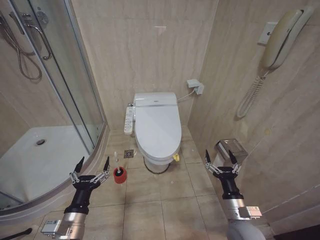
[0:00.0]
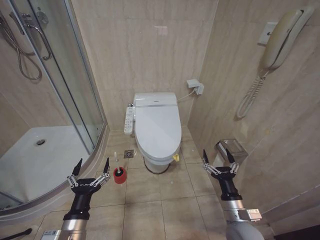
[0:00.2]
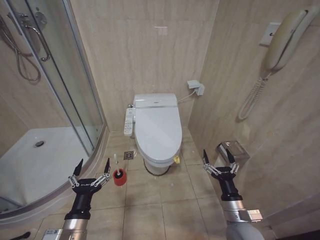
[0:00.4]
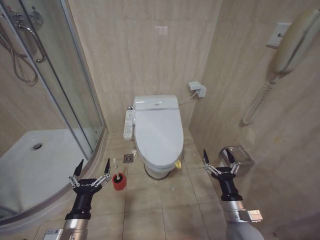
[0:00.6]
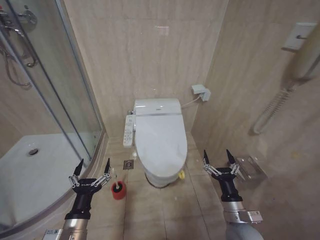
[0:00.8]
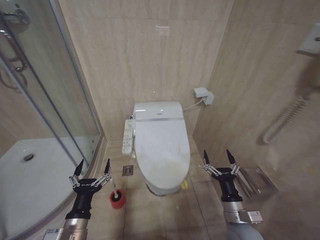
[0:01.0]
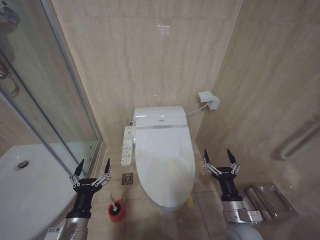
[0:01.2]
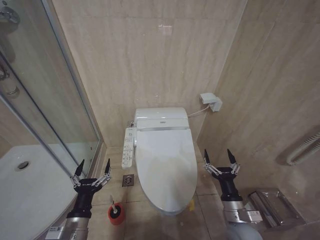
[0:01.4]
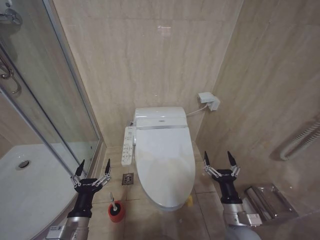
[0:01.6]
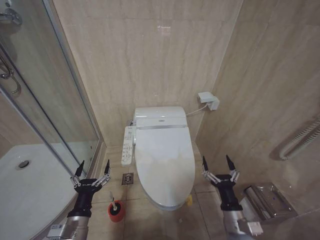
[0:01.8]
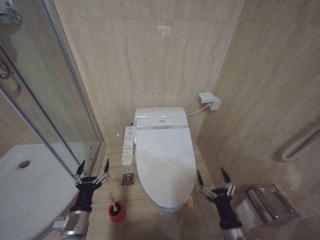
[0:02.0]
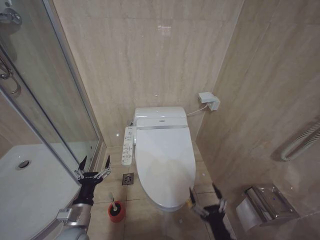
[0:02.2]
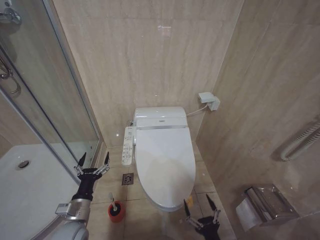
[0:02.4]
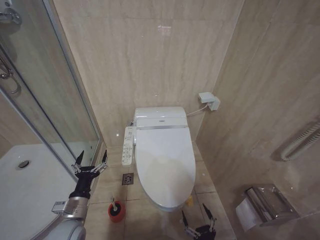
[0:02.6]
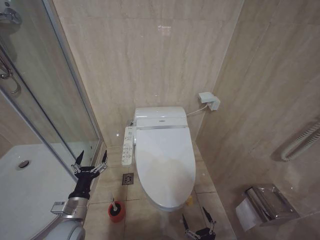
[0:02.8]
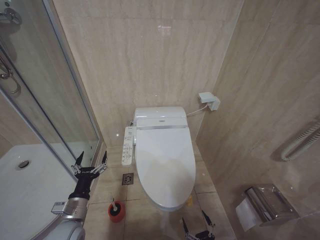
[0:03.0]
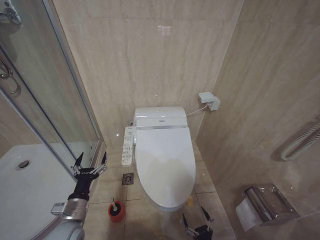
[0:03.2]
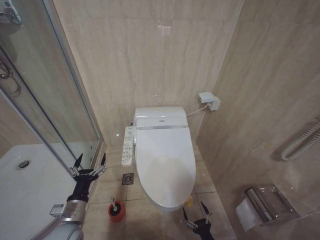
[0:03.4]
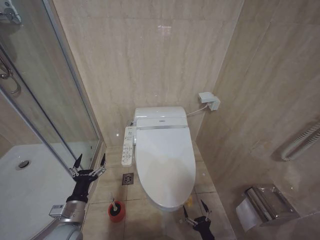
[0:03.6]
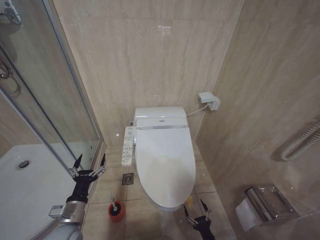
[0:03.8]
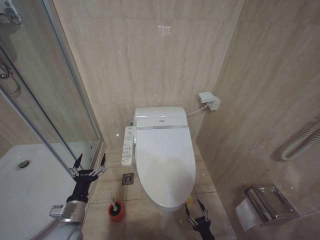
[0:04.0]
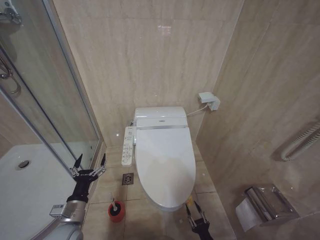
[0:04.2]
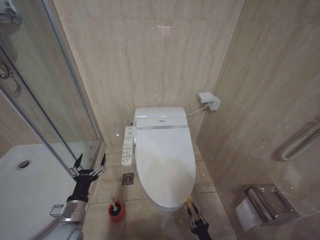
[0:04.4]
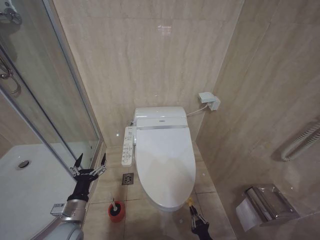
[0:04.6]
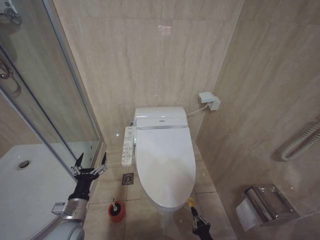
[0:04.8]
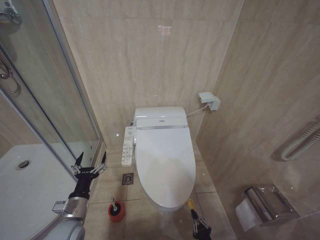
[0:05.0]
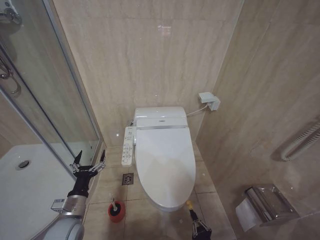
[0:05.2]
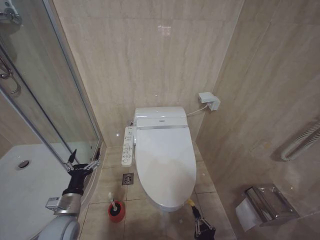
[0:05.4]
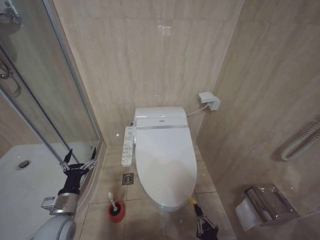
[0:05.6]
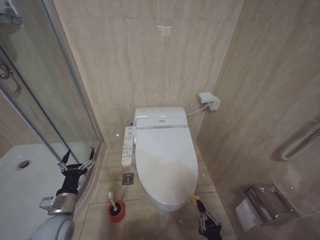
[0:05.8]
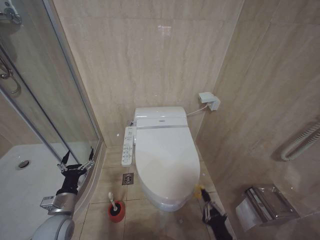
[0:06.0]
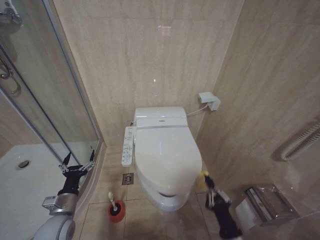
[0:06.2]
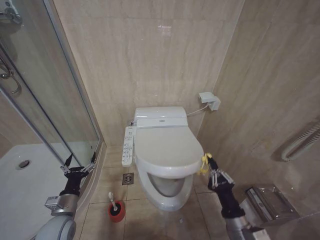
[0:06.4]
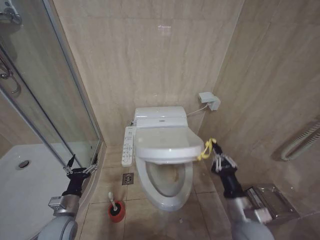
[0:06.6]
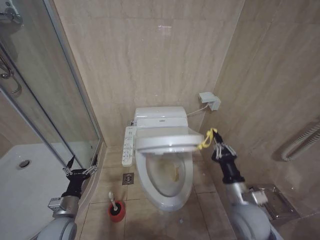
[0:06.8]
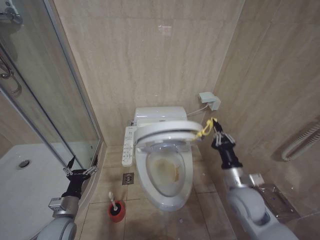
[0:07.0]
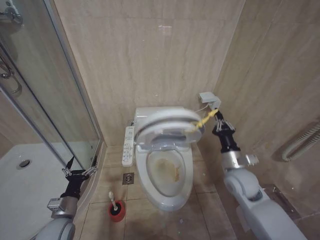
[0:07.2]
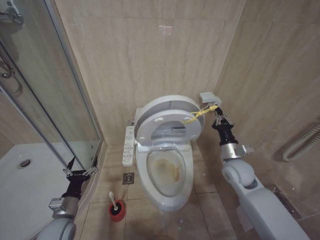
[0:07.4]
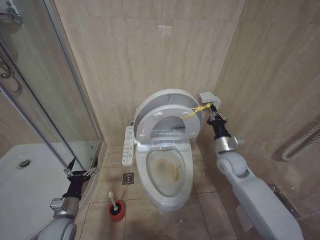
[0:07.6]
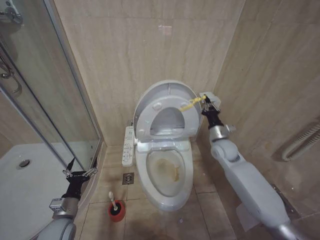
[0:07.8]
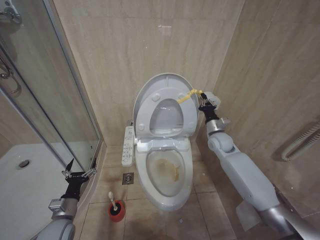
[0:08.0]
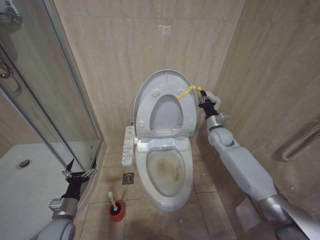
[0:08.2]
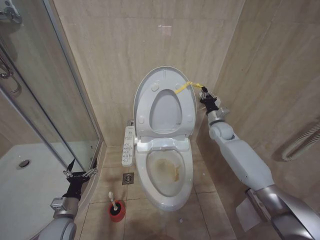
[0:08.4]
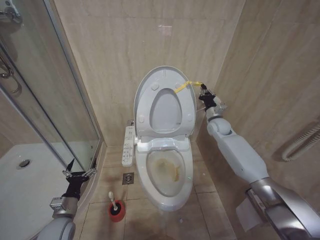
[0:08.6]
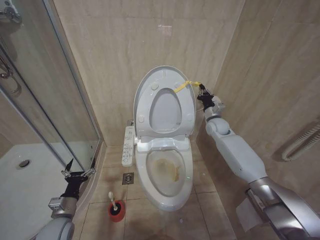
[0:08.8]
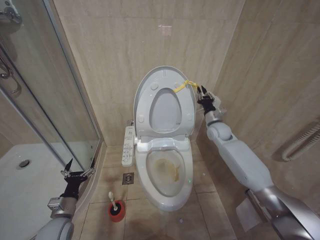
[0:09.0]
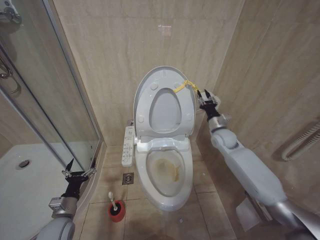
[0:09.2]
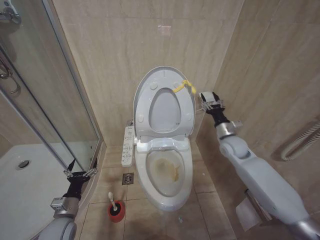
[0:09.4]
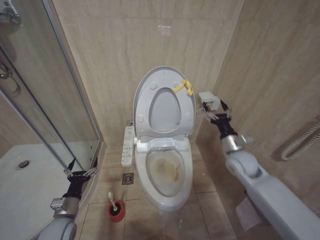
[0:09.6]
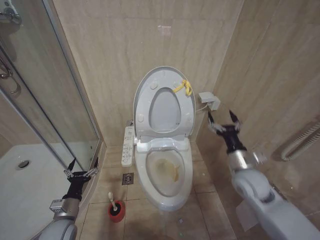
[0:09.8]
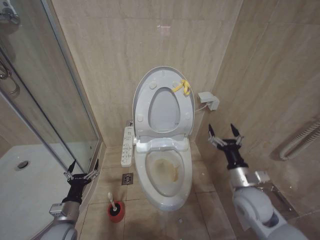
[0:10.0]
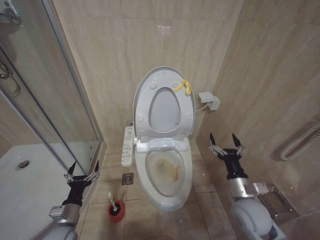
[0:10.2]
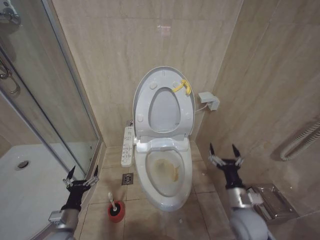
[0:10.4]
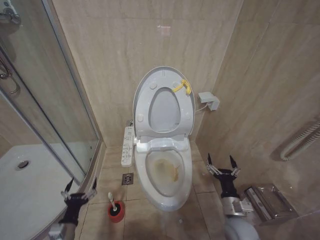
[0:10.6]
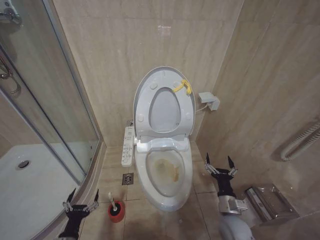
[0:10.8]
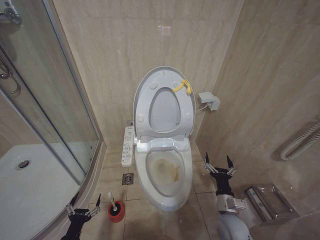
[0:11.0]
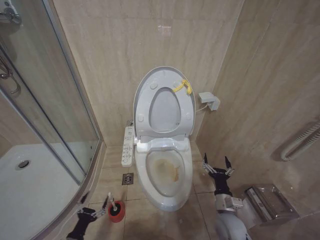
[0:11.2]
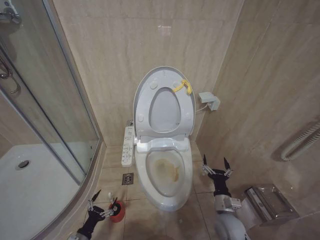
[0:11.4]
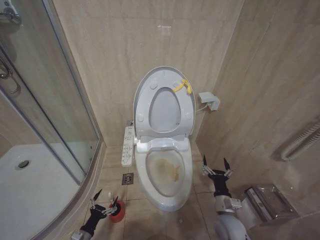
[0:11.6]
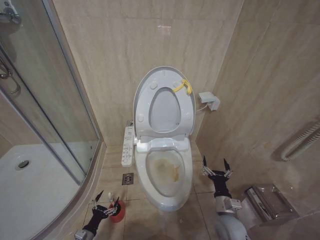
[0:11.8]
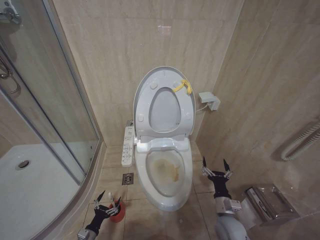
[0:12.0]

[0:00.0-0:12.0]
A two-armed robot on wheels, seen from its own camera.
Task of the whole recording: Open the toilet lid, clean the toilet bowl with a toilet brush, close the toilet lid, and flush.
0:01.6 to 0:03.0: The right gripper moves downward and backward, some 20 cm, while the left gripper shifts approximately 5 cm forward.
0:04.4 to 0:06.0: The right gripper is displaced upward by some 15 cm, and closes.
0:06.0 to 0:07.6: The right gripper travels forward and upward by some 35 cm.
0:07.6 to 0:09.0: The right gripper travels forward by roughly 20 cm.
0:09.0 to 0:10.4: The right gripper is displaced backward by approximately 30 cm, and opens.
0:10.4 to 0:12.0: The left gripper heads downward, covering about 20 cm. Meanwhile the right gripper goes roughly 10 cm downward.

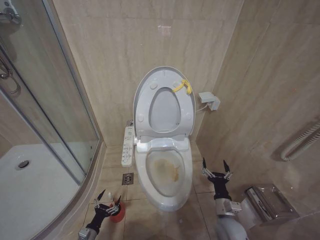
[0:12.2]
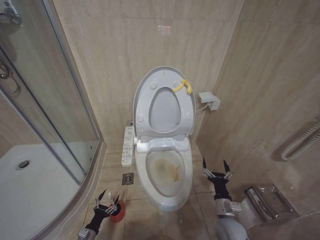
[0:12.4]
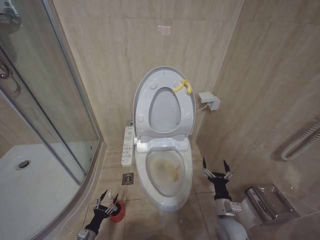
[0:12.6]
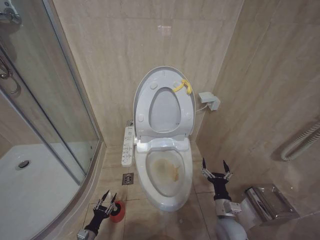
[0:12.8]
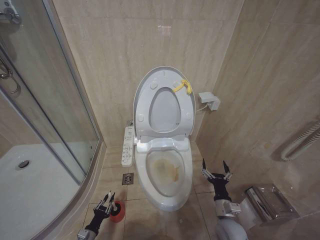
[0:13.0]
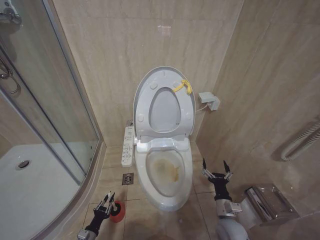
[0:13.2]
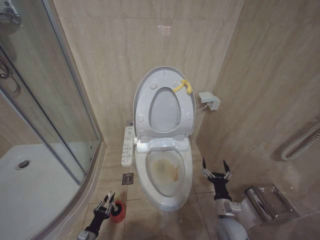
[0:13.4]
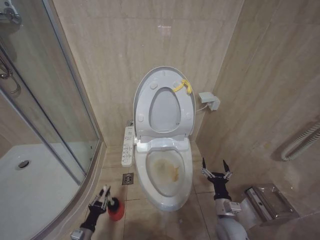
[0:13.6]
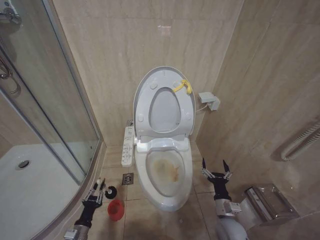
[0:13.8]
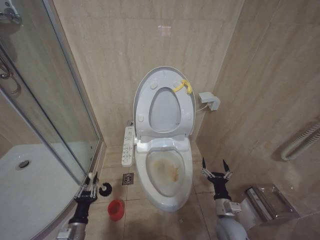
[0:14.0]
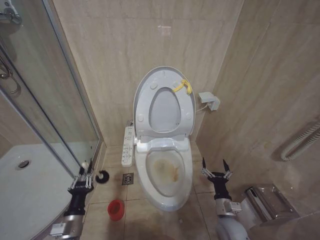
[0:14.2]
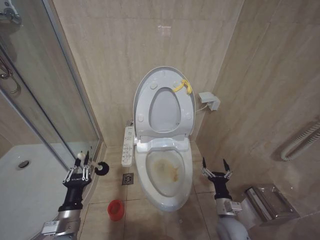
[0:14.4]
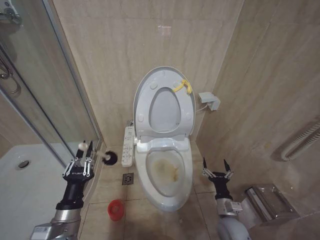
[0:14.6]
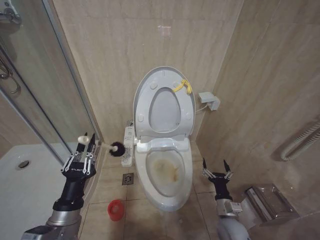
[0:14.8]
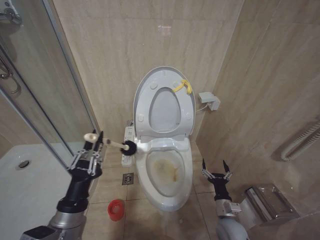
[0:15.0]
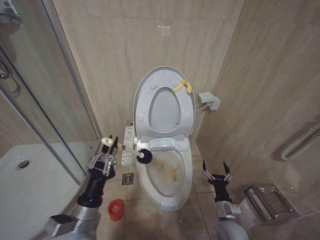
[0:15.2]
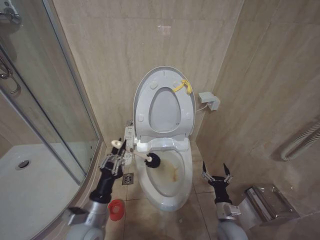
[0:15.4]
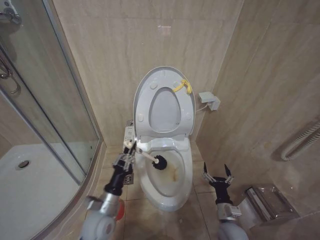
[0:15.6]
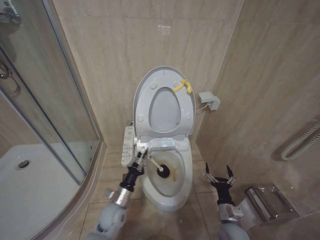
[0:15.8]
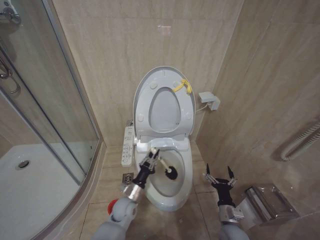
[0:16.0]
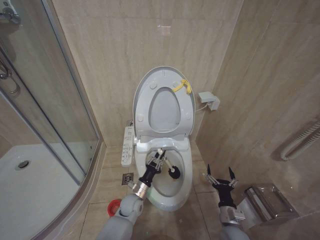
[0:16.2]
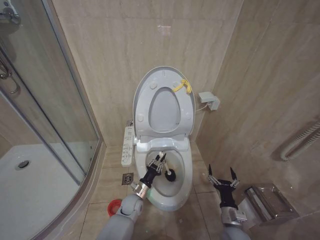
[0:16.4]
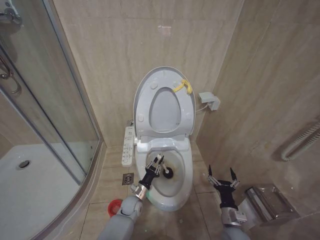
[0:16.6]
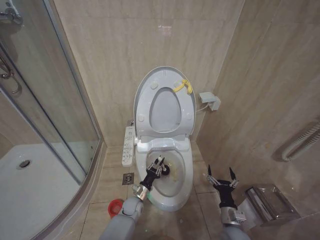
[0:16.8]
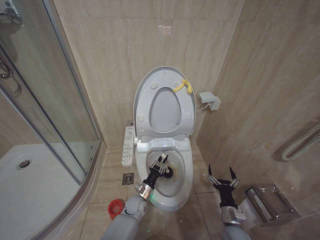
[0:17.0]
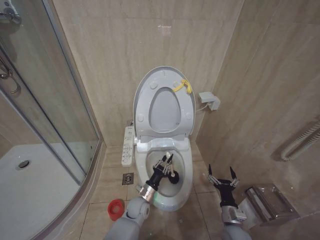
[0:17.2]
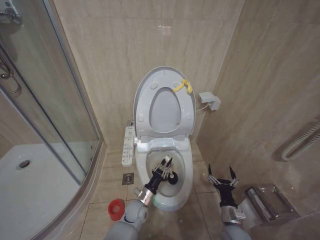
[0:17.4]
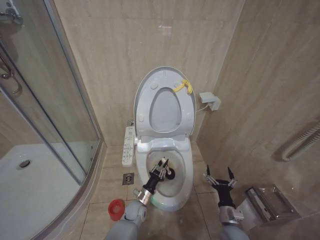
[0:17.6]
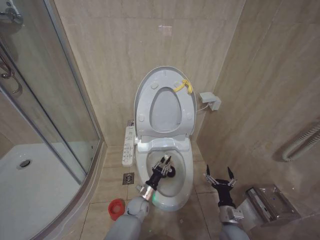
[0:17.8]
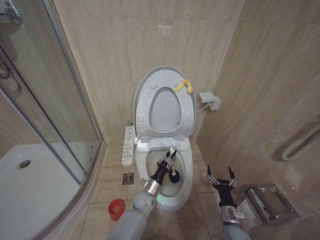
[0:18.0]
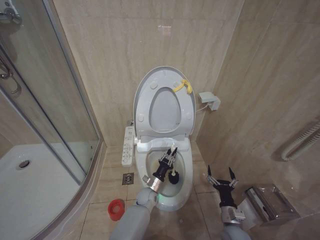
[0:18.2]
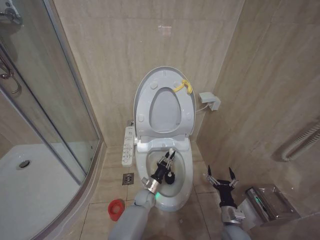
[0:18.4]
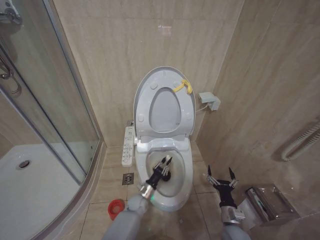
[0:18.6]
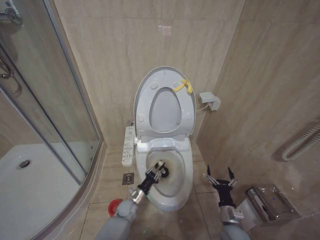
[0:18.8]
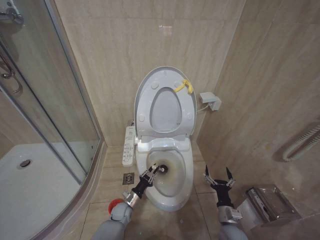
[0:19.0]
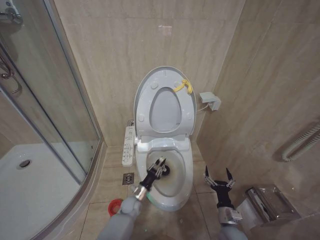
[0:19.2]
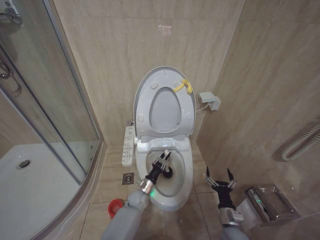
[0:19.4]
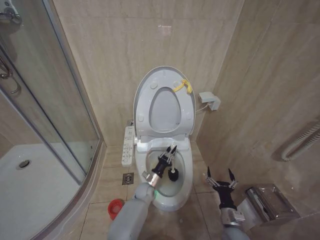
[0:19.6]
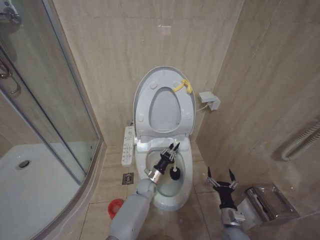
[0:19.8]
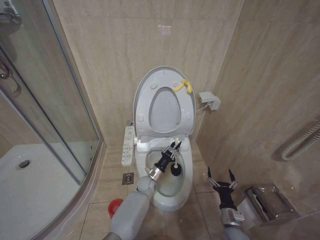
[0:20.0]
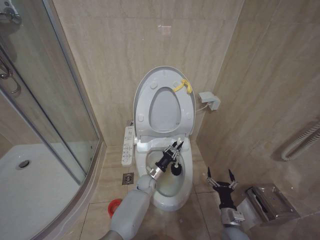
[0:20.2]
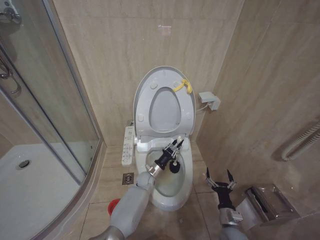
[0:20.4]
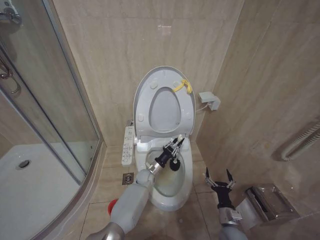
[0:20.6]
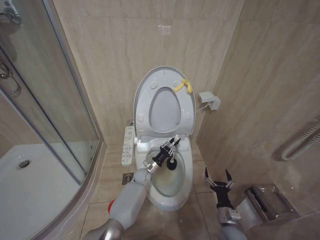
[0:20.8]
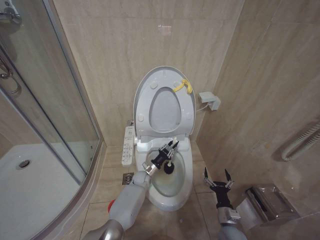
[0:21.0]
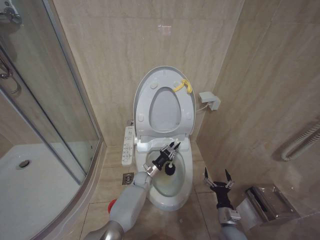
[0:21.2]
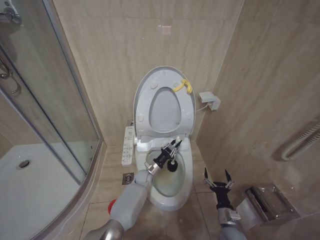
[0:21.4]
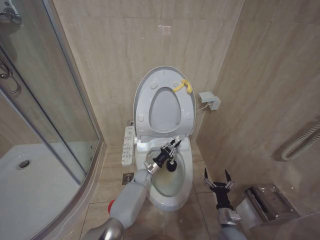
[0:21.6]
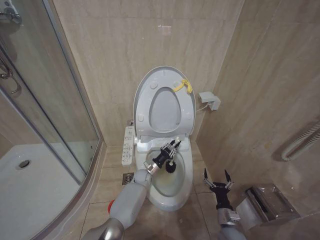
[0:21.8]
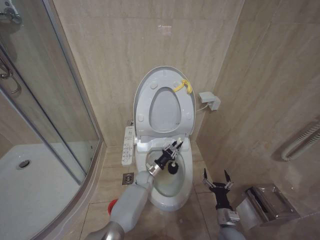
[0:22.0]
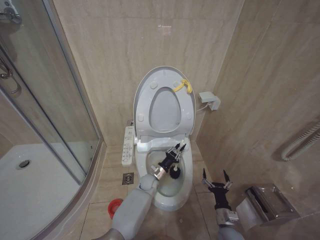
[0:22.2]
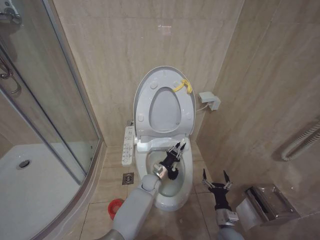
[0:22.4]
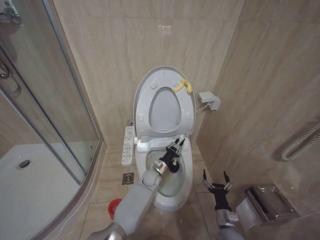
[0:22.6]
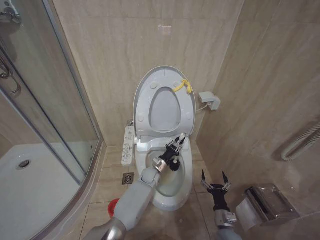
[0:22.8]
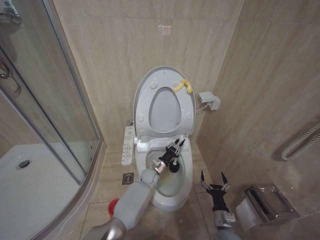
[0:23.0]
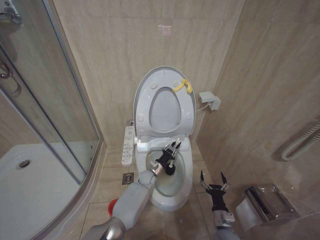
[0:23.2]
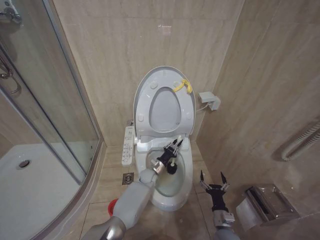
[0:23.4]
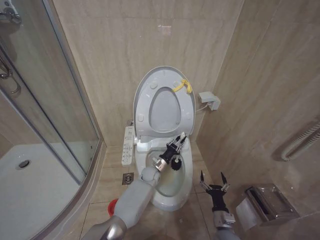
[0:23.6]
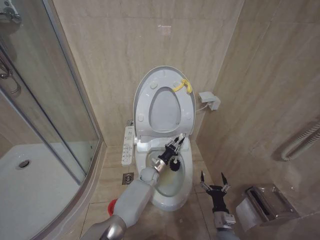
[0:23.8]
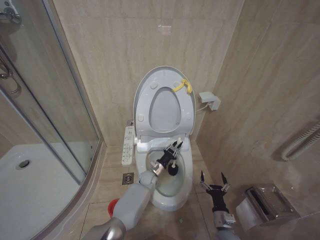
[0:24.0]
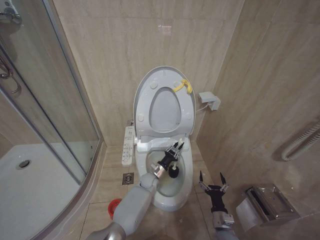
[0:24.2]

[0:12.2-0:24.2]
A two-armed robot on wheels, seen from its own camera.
Task of the whole recording: Open the toilet lid, clean the toilet bowl with a toilet brush, close the toilet lid, and flush.
0:12.2 to 0:13.8: The left gripper is displaced upward by roughly 5 cm, and closes its fingers.
0:13.8 to 0:15.2: The left gripper shifts some 25 cm upward.
0:15.2 to 0:16.6: The left gripper moves downward, forward and to the right, some 35 cm.
0:16.6 to 0:18.2: The left gripper shifts approximately 10 cm to the right.
0:18.2 to 0:19.8: The left gripper goes to the left and returns, roughly 10 cm each way.
0:19.8 to 0:21.2: The left gripper moves roughly 5 cm.
0:21.2 to 0:22.6: The left gripper heads to the right, covering roughly 5 cm.
0:22.6 to 0:24.2: The grippers stay close to where they were, moving slightly.
